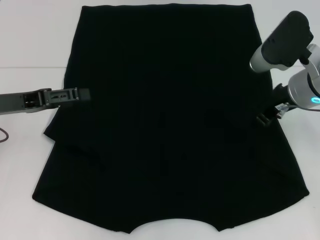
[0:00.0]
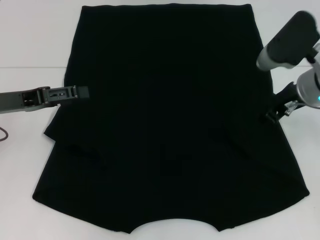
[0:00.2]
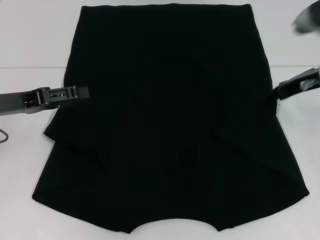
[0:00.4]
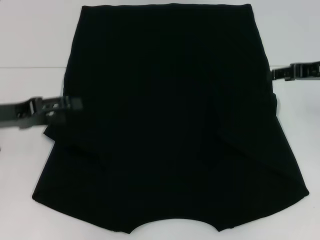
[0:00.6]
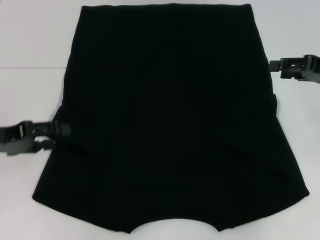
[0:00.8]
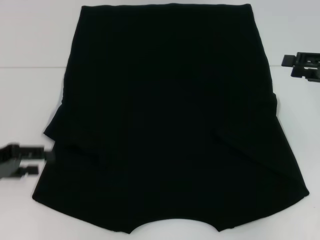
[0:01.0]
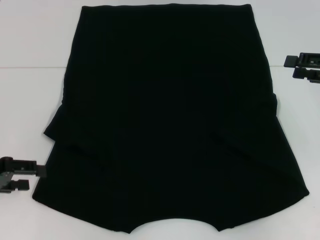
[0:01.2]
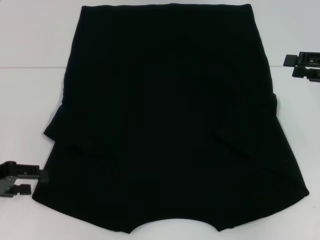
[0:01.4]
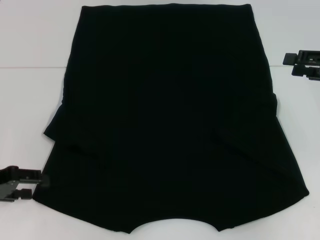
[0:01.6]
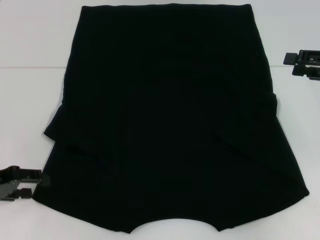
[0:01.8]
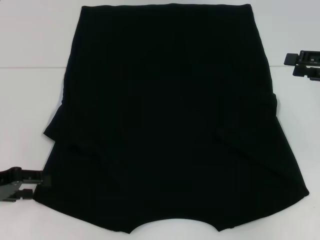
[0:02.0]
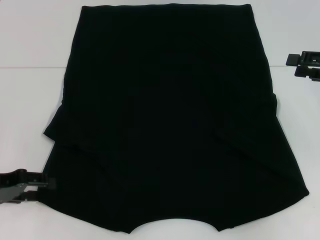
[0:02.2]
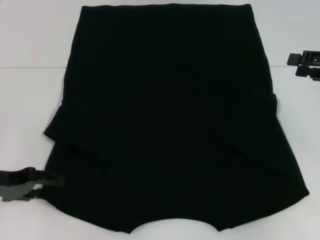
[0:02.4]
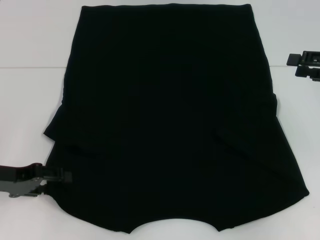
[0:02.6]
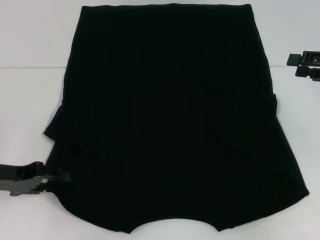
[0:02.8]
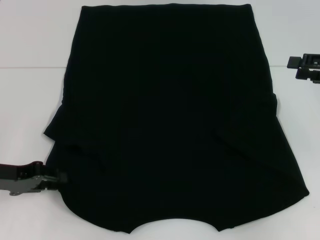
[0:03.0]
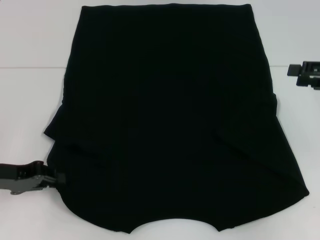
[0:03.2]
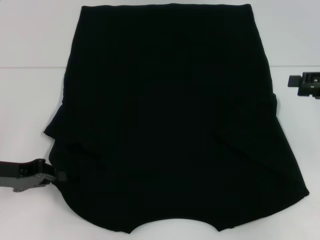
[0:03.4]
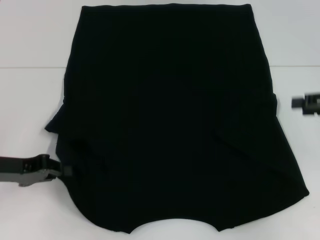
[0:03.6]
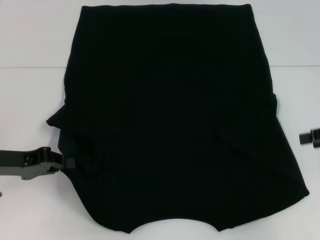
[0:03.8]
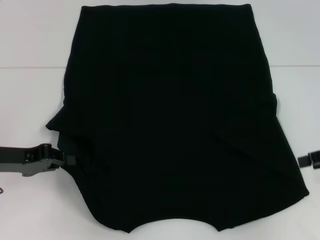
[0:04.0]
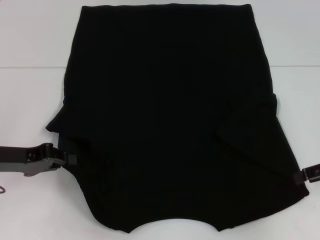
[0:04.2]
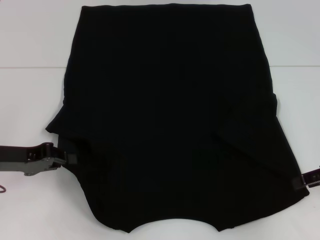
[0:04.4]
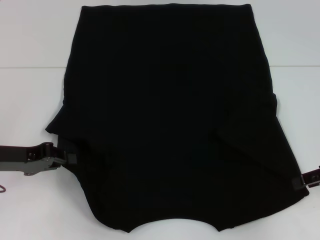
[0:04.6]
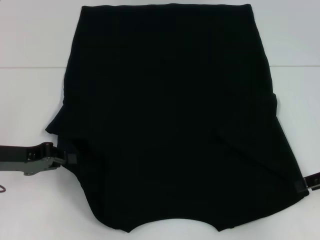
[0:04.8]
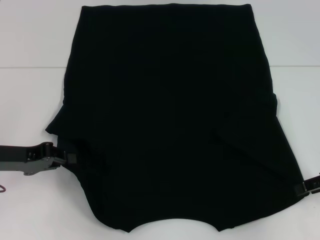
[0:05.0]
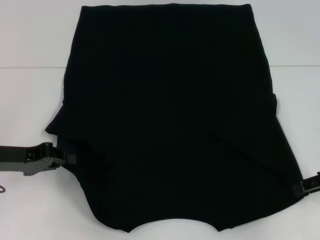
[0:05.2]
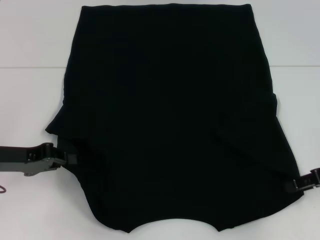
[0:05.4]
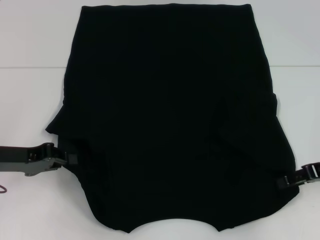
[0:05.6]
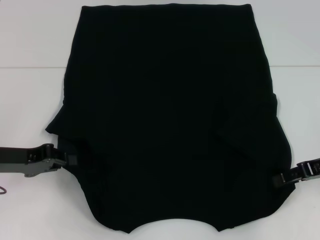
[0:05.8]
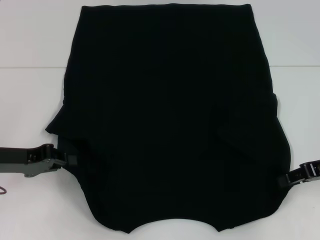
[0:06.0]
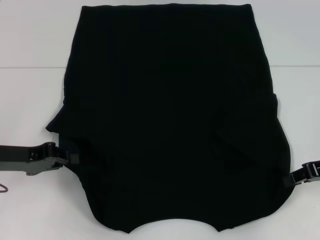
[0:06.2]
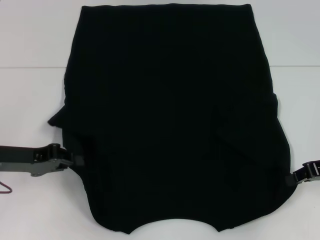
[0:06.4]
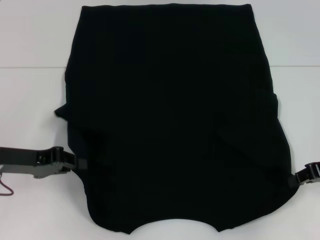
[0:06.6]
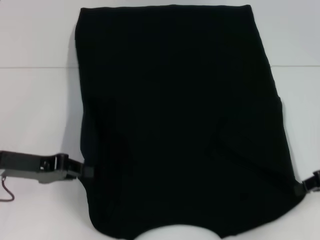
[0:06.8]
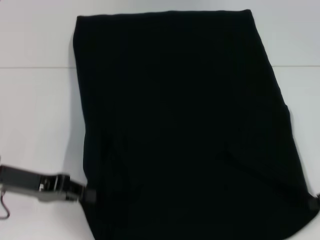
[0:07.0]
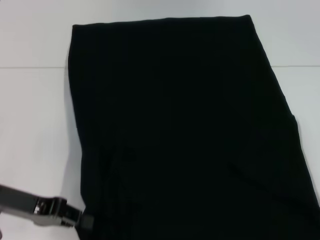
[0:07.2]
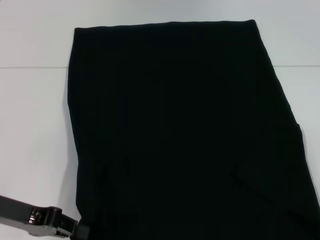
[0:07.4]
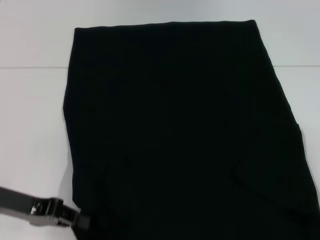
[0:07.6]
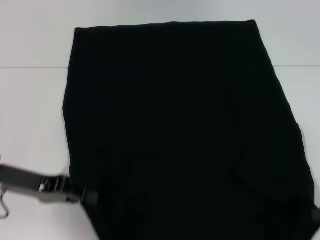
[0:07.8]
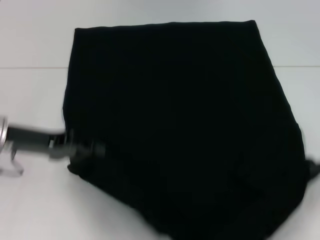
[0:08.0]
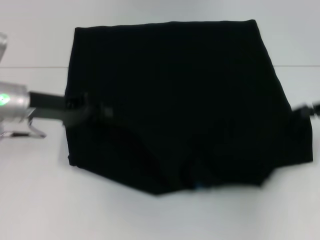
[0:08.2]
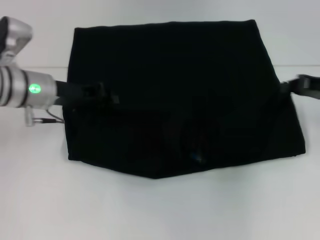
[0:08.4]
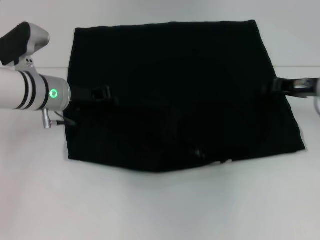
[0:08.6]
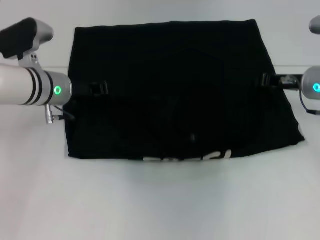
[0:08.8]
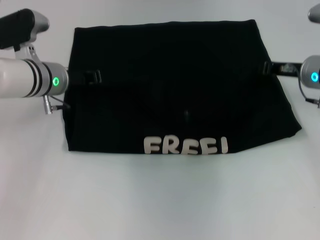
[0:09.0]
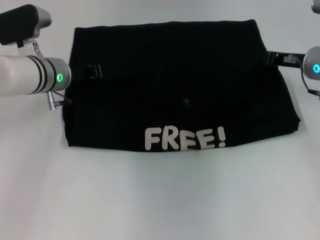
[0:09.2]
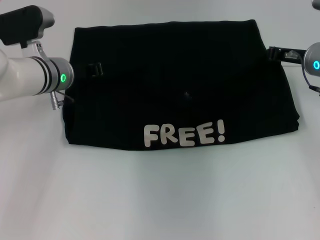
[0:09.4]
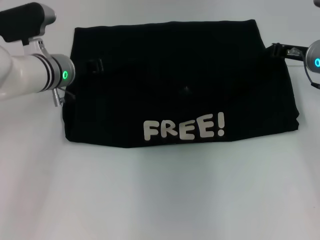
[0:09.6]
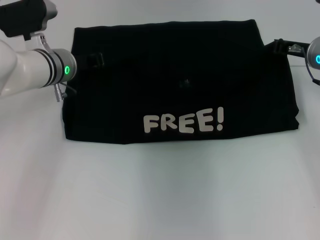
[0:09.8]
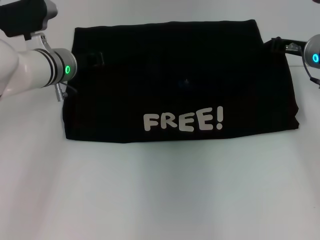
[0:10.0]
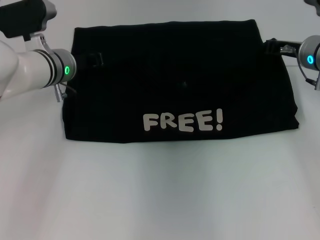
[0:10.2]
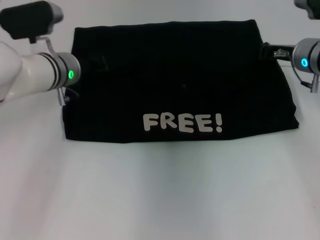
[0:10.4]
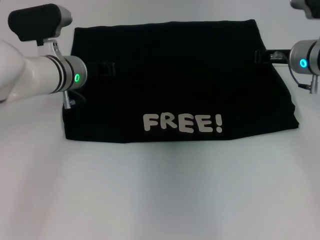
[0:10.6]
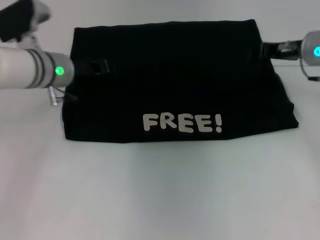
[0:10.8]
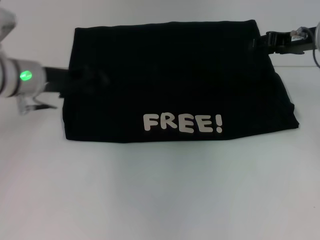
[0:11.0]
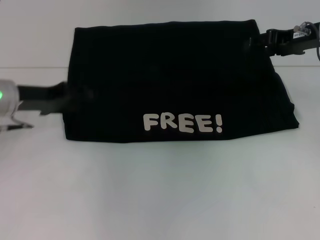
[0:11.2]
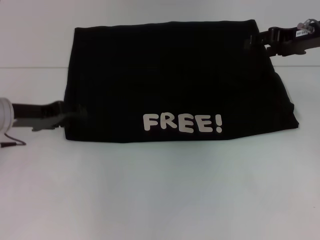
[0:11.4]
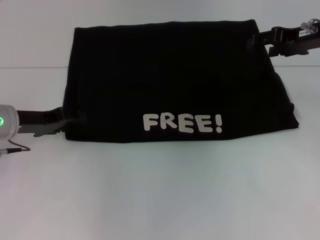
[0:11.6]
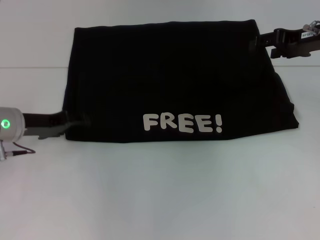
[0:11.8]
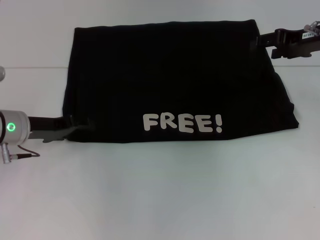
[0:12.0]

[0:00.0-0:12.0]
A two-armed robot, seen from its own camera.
Step, 0:00.6 to 0:06.6: Grab the bottom left corner with your left hand.
Step, 0:00.6 to 0:06.6: Grab the bottom right corner with your right hand.
Step, 0:06.8 to 0:11.2: Fold the clothes with your left hand.
Step, 0:06.8 to 0:11.2: Fold the clothes with your right hand.
0:00.0 to 0:01.6: The right gripper is displaced to the right by approximately 15 cm, and opens its fingers; the left gripper moves backward and downward, approximately 10 cm.
0:01.6 to 0:03.0: The grippers move only a little.
0:03.0 to 0:04.4: The left gripper closes up; the right gripper heads downward, covering about 5 cm.
0:04.4 to 0:06.0: The grippers make only small movements.
0:06.0 to 0:07.6: The right gripper travels backward and to the right by approximately 10 cm, and closes up.
0:07.6 to 0:09.0: The left gripper heads forward and to the right, covering approximately 20 cm. Meanwhile the right gripper moves forward and to the left, roughly 25 cm.
0:09.0 to 0:10.4: The grippers stay close to where they were, moving slightly.
0:10.4 to 0:12.0: The left gripper is displaced to the left and backward by about 10 cm, and opens up, while the right gripper moves upward, about 5 cm, and opens up.

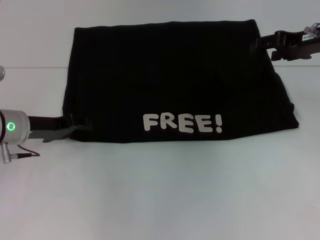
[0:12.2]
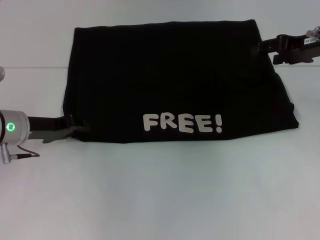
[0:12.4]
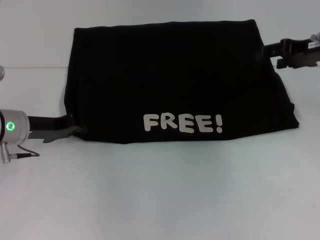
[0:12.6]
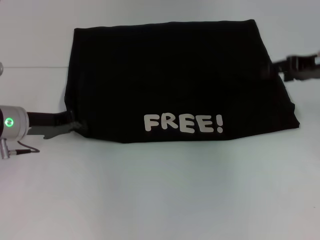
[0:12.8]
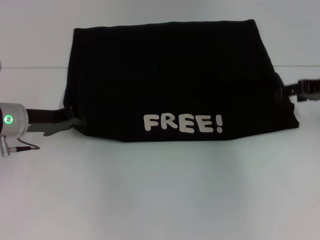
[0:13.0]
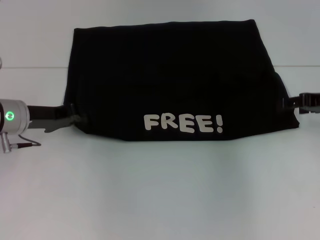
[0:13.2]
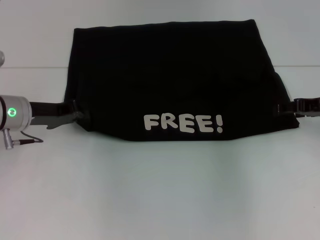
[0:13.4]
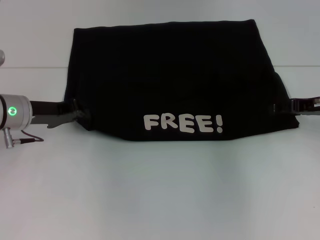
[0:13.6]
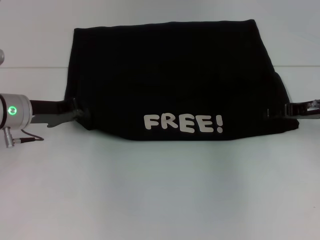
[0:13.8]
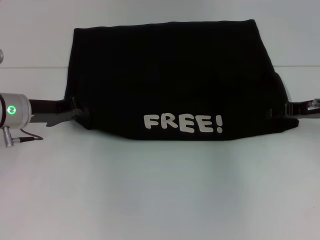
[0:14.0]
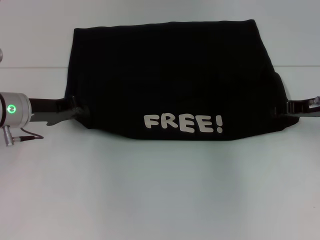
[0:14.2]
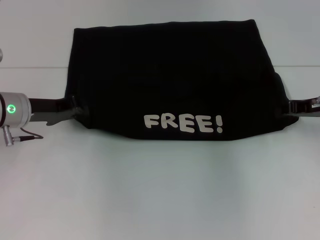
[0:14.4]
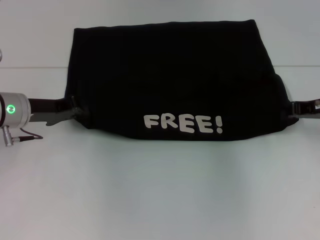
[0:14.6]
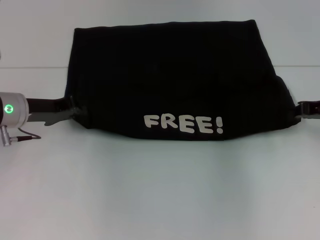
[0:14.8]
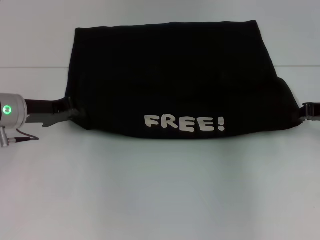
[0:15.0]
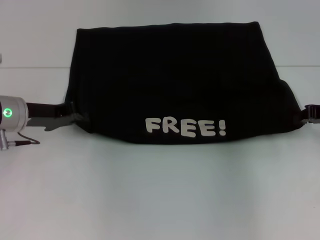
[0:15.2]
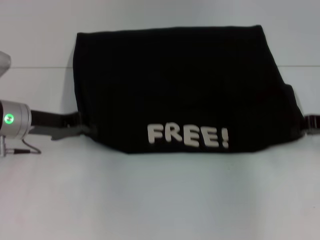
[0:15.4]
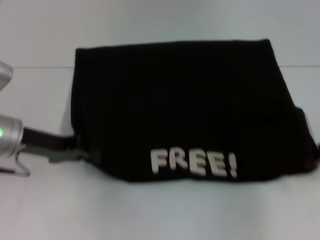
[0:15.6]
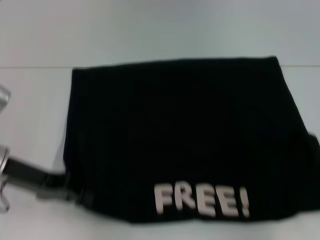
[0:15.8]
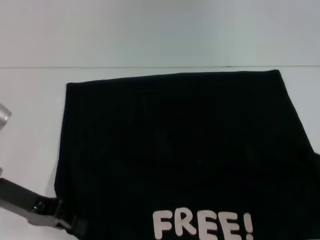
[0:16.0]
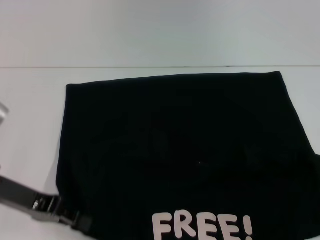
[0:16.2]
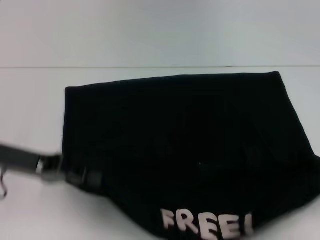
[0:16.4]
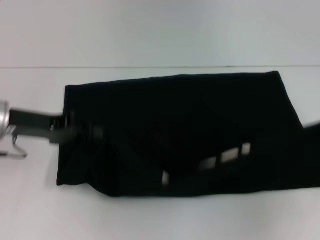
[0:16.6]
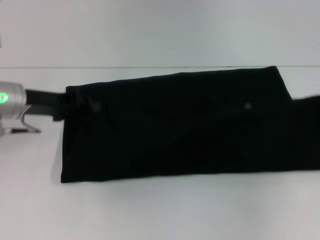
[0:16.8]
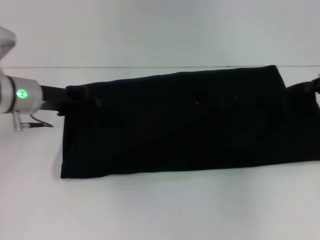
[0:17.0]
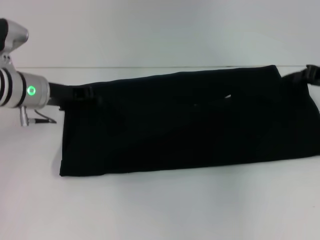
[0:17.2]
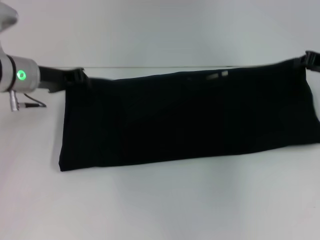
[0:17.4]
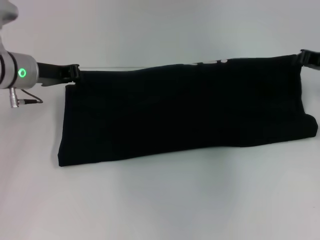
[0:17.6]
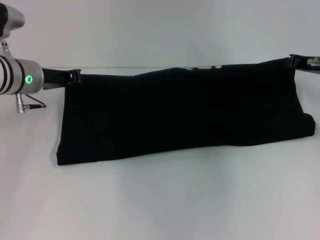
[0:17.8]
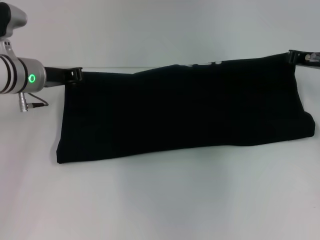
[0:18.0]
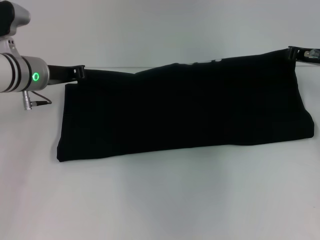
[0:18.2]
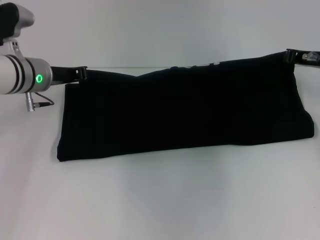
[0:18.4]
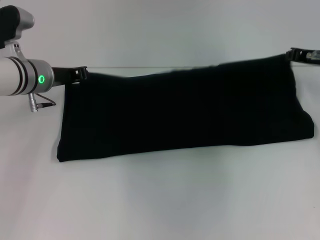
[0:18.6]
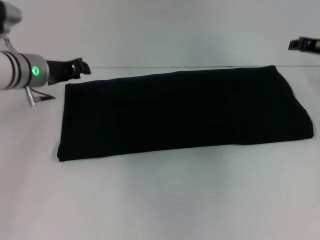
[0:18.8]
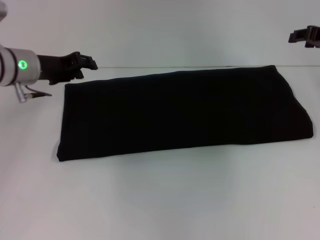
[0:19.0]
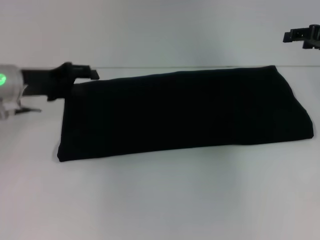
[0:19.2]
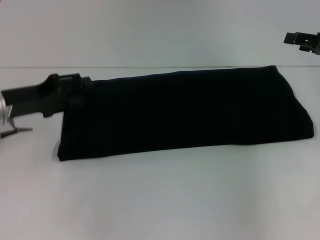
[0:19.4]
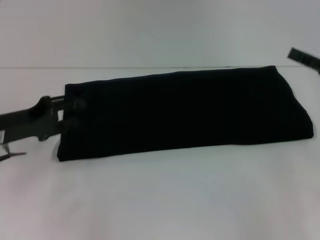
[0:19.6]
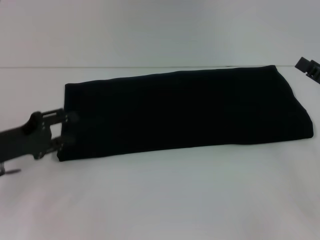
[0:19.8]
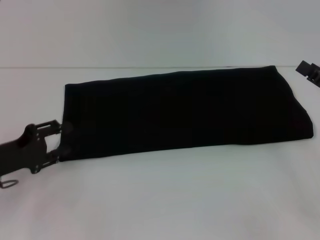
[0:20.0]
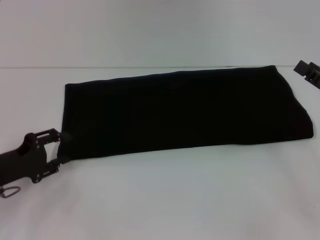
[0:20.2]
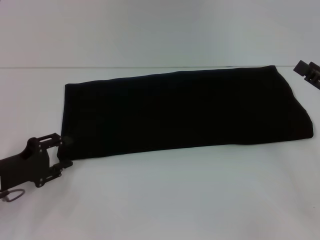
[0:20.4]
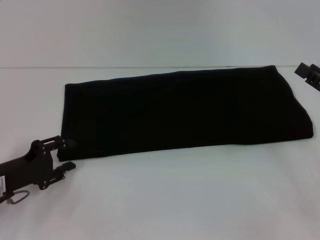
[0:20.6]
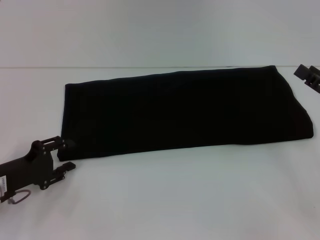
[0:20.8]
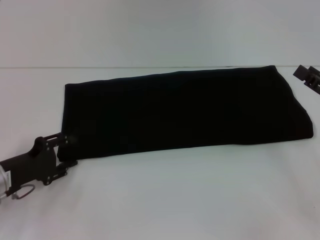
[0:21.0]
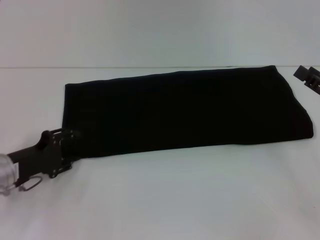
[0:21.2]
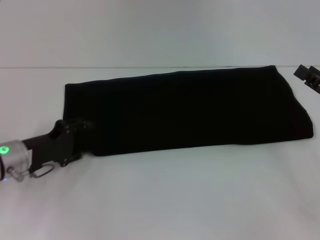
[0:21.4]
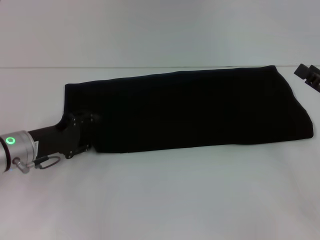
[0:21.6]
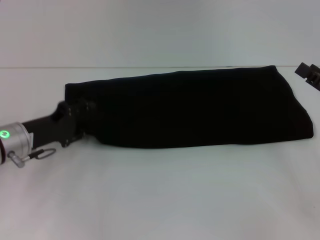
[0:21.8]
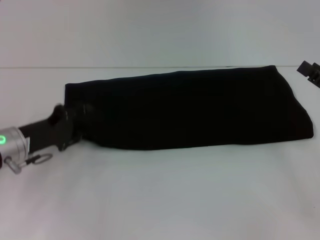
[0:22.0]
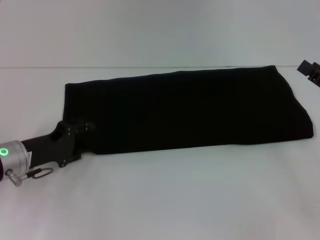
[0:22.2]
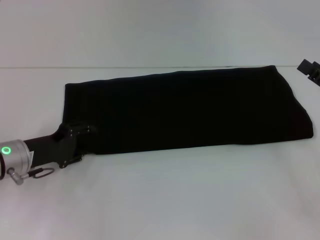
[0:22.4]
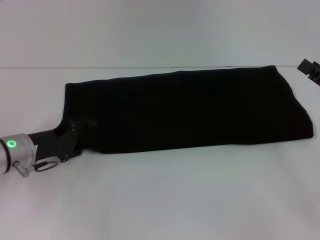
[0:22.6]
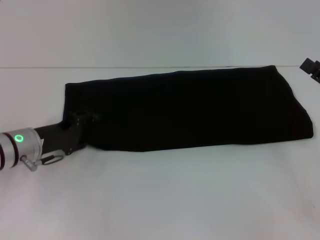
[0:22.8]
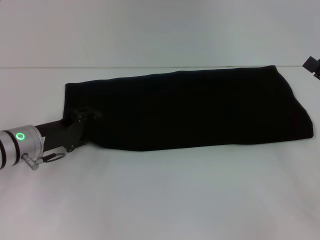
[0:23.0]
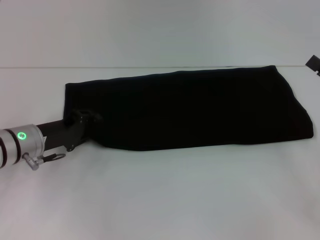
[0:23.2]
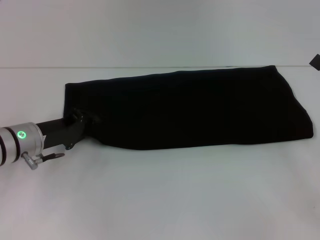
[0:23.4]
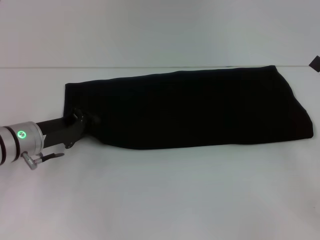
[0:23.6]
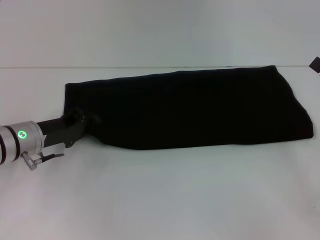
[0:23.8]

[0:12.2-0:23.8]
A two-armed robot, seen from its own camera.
Step, 0:12.2 to 0:16.0: Pull the clothes with your left hand.
Step, 0:12.2 to 0:16.0: Pull the clothes with your right hand.
Step, 0:16.2 to 0:19.4: Fold the clothes with your right hand.
0:12.2 to 0:13.6: The right gripper heads downward, covering roughly 10 cm. Meanwhile the left gripper closes up.
0:13.6 to 0:15.0: The right gripper closes up.
0:15.0 to 0:16.6: The right gripper shifts about 10 cm to the right and backward.
0:16.6 to 0:18.0: The left gripper shifts roughly 10 cm forward, while the right gripper heads forward and to the left, covering approximately 15 cm.
0:18.0 to 0:19.4: The left gripper is displaced backward and to the left by some 10 cm, and opens its fingers. Meanwhile the right gripper shifts by some 5 cm, and opens up.
0:19.4 to 0:21.0: The left gripper heads downward and backward, covering roughly 10 cm. The right gripper travels backward and downward by about 15 cm.
0:21.0 to 0:22.4: The left gripper ends up about 5 cm from where it was.
0:22.4 to 0:23.8: The left gripper closes.
